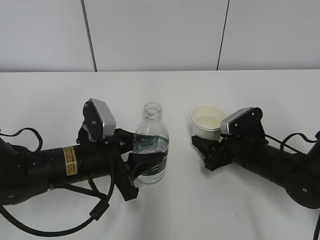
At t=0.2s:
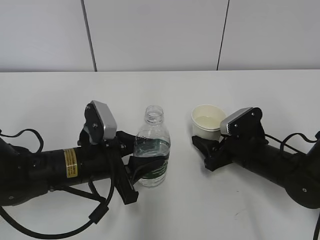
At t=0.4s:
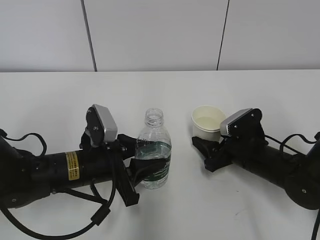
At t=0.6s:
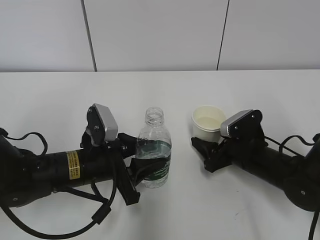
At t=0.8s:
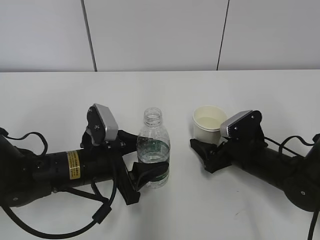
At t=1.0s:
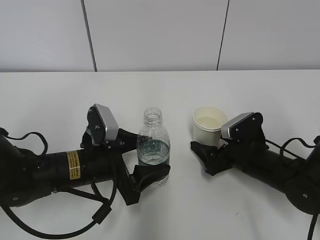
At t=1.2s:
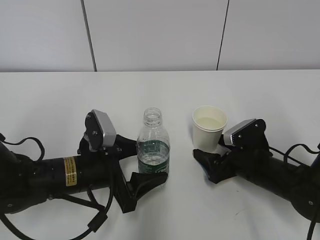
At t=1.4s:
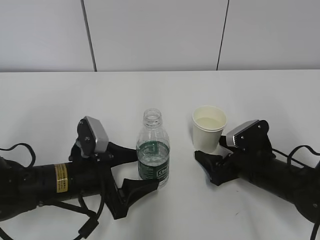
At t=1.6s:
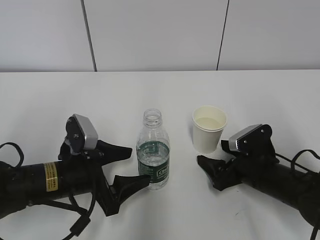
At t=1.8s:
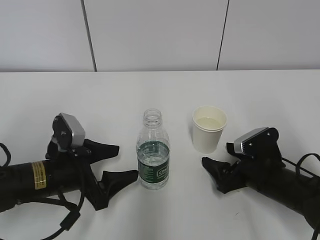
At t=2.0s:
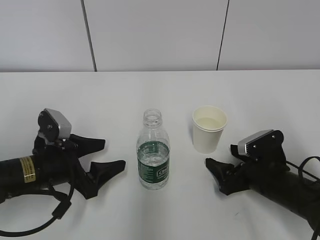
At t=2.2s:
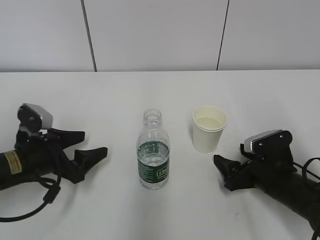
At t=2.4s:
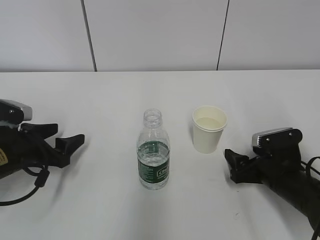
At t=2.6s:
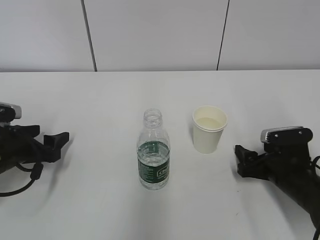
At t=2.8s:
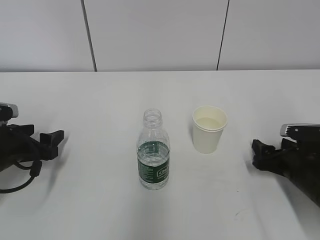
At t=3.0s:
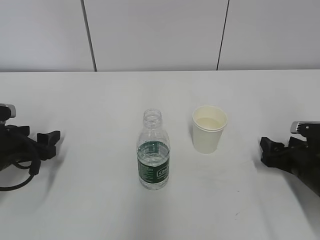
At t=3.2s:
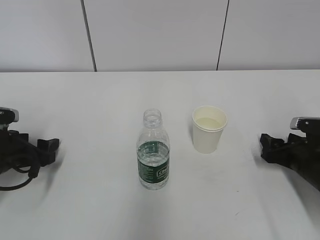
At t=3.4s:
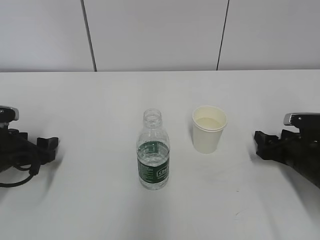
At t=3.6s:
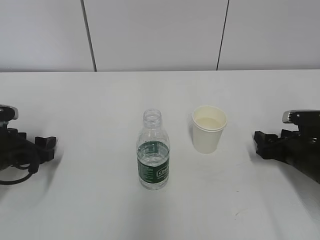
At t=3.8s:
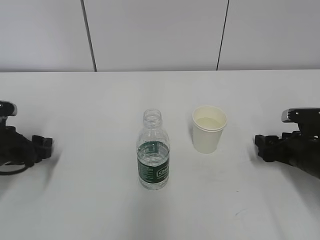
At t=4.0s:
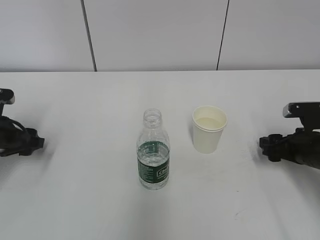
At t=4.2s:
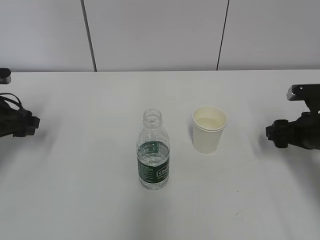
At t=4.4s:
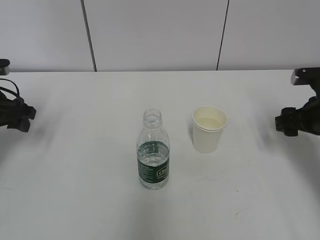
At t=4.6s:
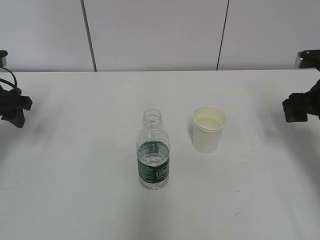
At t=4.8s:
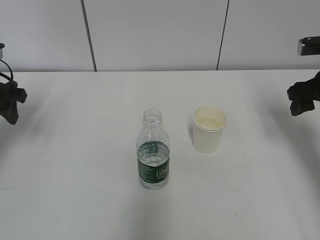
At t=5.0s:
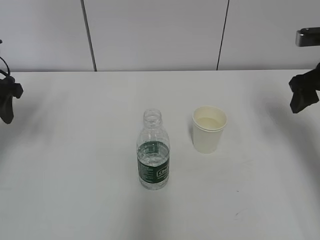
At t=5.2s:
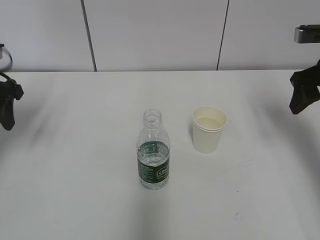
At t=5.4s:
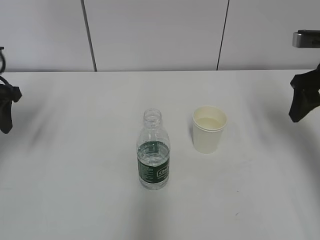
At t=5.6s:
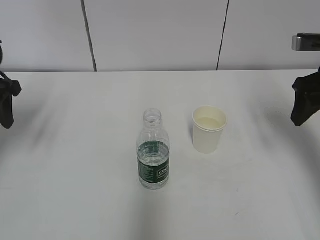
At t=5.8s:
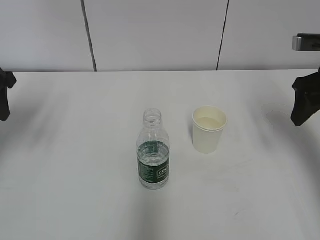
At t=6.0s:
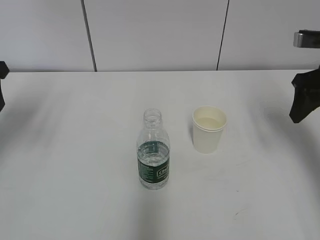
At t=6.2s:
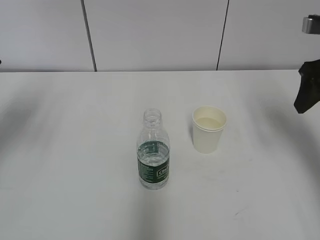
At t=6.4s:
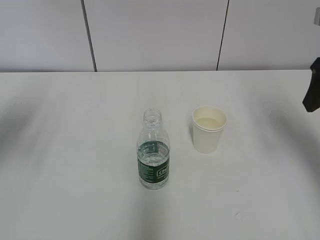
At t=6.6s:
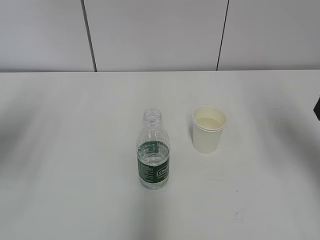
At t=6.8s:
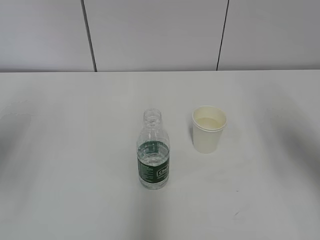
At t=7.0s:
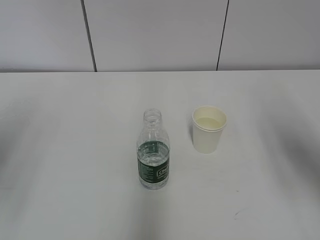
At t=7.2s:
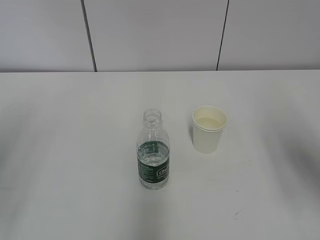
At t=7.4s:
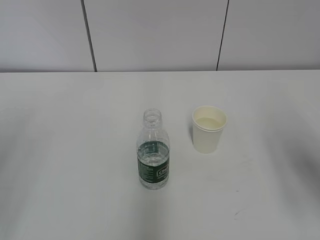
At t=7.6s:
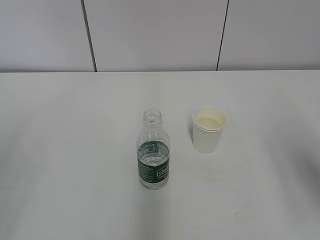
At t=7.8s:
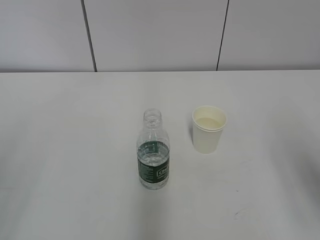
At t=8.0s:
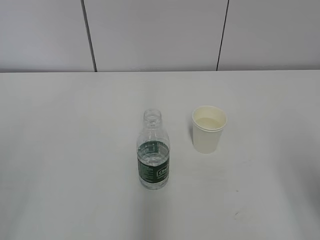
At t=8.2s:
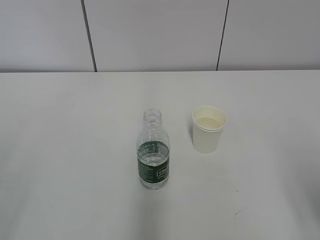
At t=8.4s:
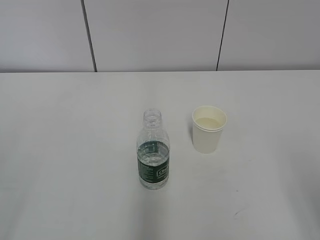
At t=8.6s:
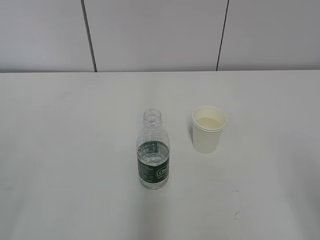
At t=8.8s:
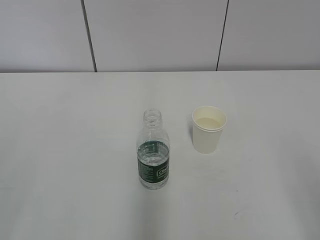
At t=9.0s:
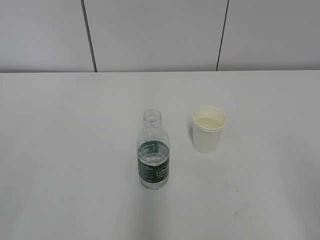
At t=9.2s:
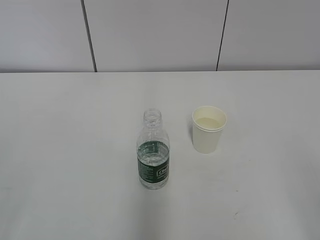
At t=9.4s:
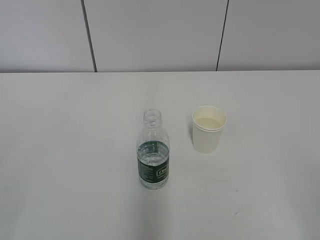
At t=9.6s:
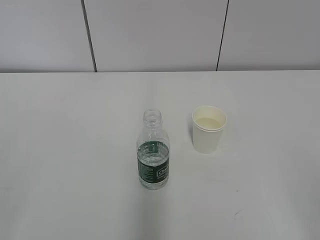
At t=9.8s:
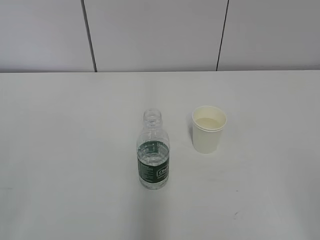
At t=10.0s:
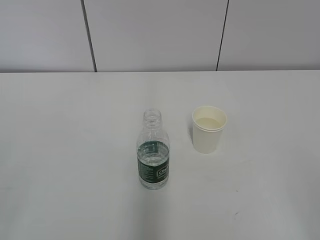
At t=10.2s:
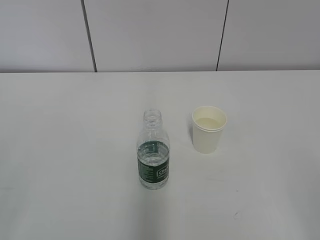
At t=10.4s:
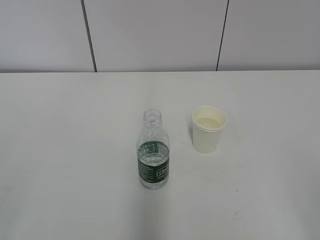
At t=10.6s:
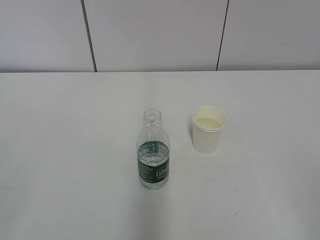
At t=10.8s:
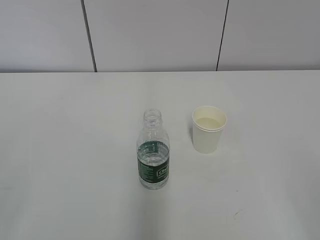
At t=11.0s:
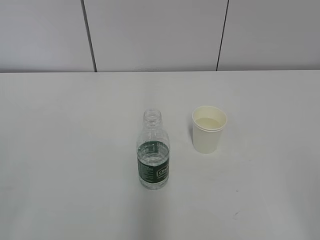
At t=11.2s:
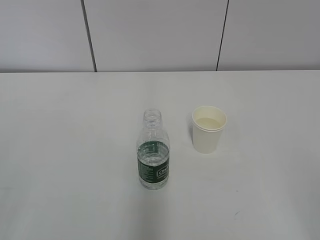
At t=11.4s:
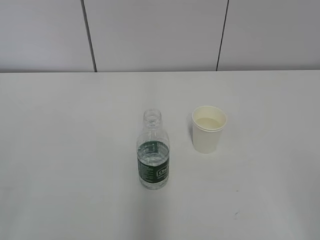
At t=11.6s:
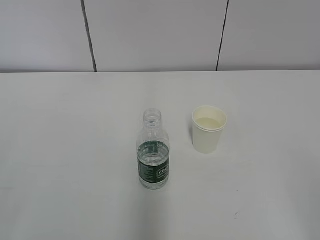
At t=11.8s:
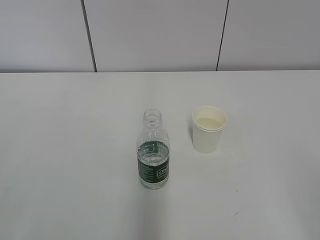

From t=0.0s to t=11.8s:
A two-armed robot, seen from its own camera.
From t=0.0s to t=1.4s: The left gripper opens up; the right gripper opens.
From t=1.4s to t=3.0s: The left gripper is displaced to the left by roughly 15 cm; the right gripper heads to the right, covering approximately 10 cm, and closes up.
From t=3.0s to t=4.4s: The right gripper goes about 10 cm upward, while the left gripper shifts some 10 cm upward and forward.
From t=4.4s to t=6.0s: Both grippers move upward, approximately 10 cm.
From t=6.0s to t=7.4s: Both grippers travel together backward, about 20 cm.
From t=7.4s to t=8.8s: The right gripper is displaced backward by roughly 15 cm.
From t=10.4s to t=11.8s: Both grippers stay about where they are.
